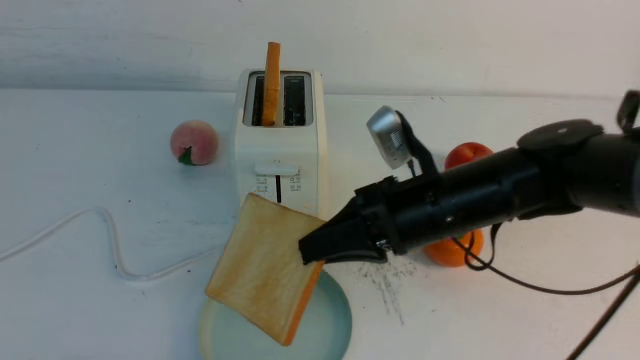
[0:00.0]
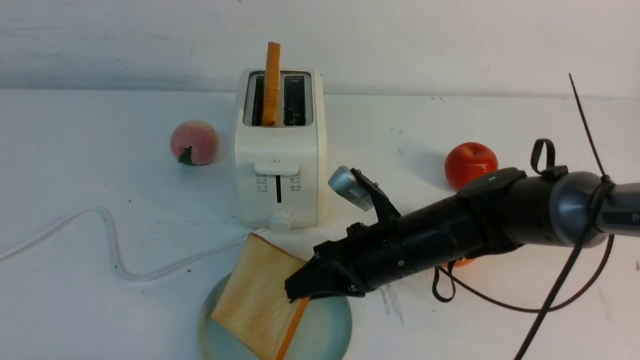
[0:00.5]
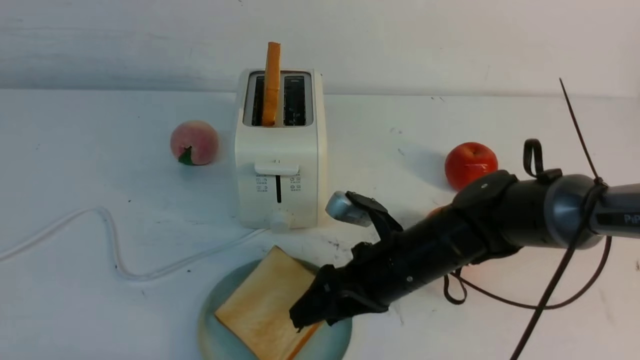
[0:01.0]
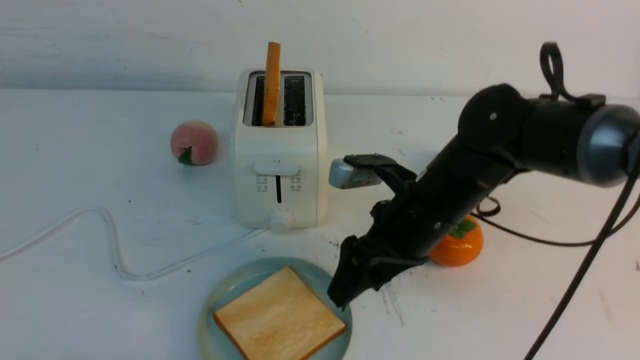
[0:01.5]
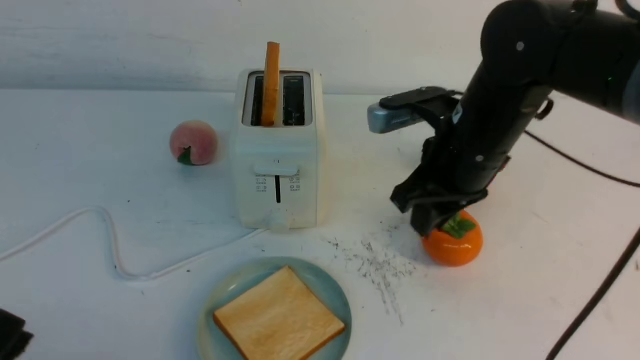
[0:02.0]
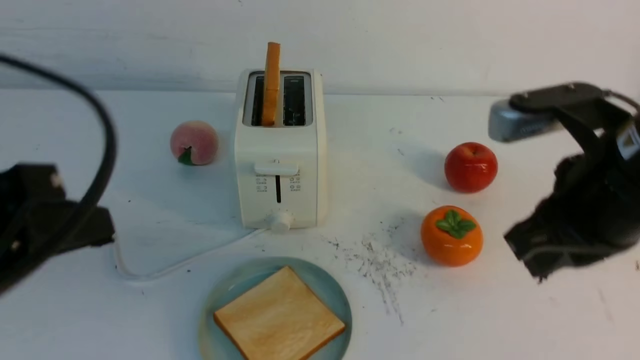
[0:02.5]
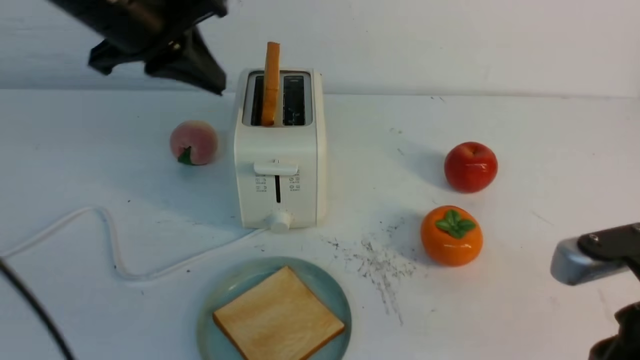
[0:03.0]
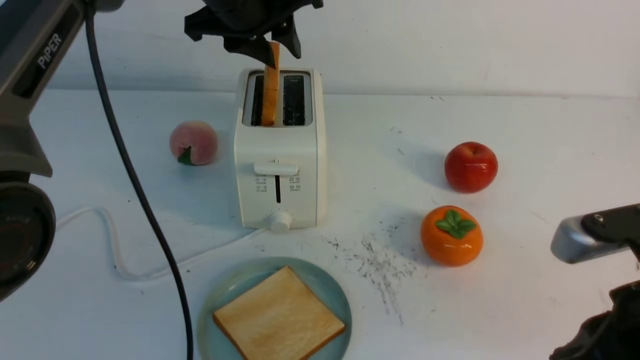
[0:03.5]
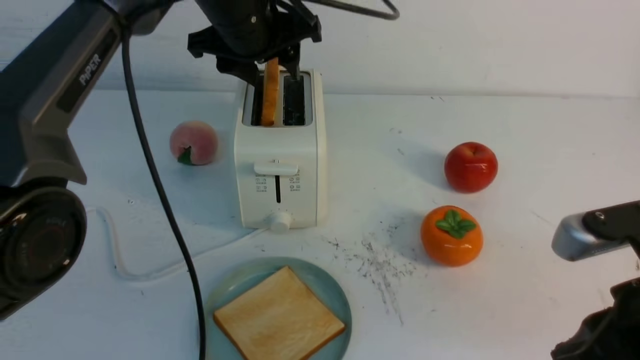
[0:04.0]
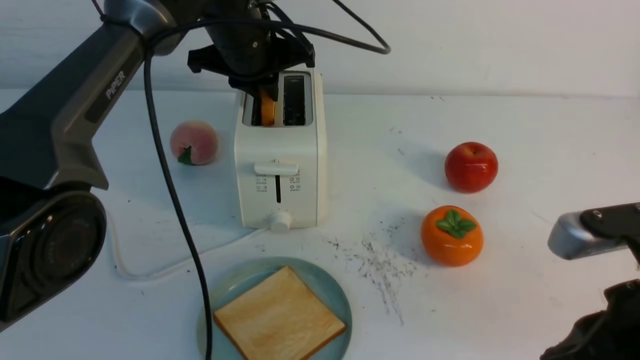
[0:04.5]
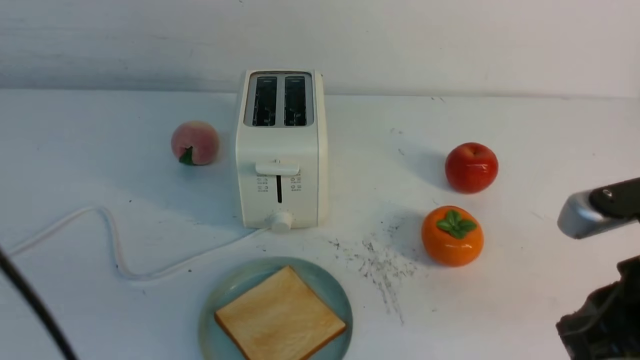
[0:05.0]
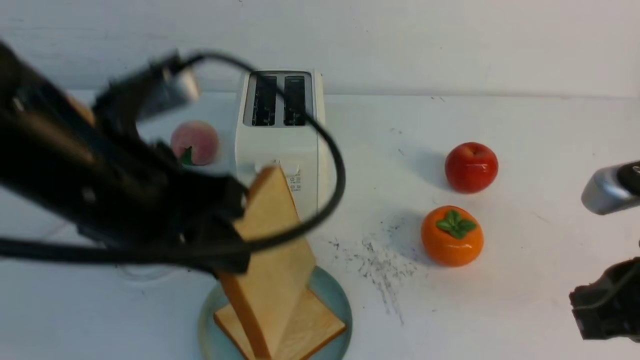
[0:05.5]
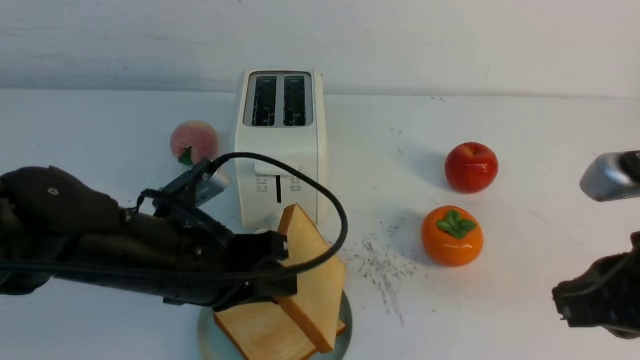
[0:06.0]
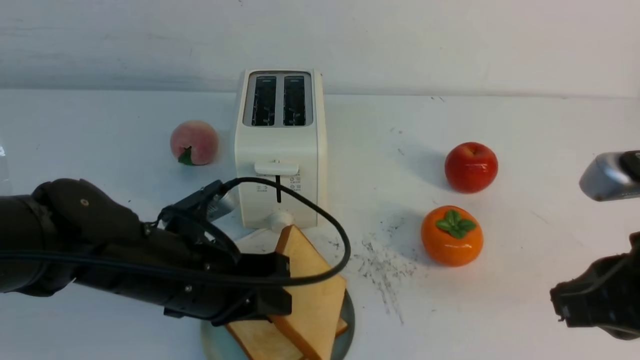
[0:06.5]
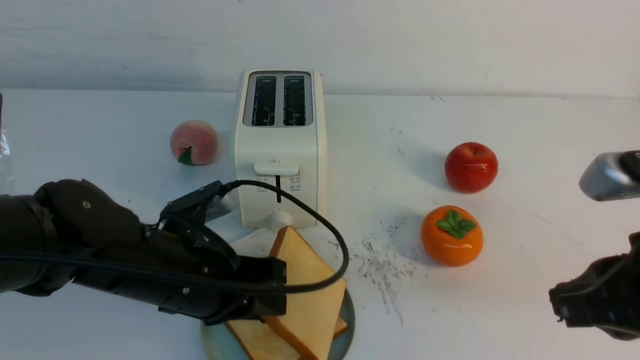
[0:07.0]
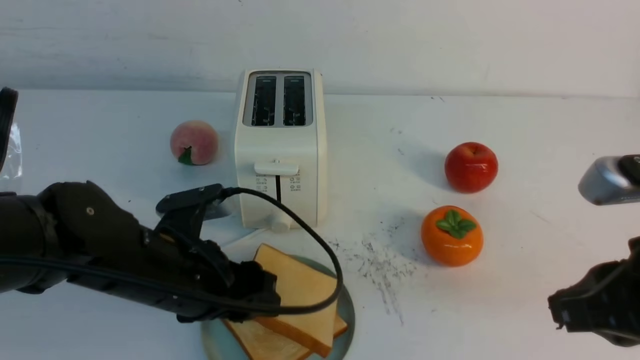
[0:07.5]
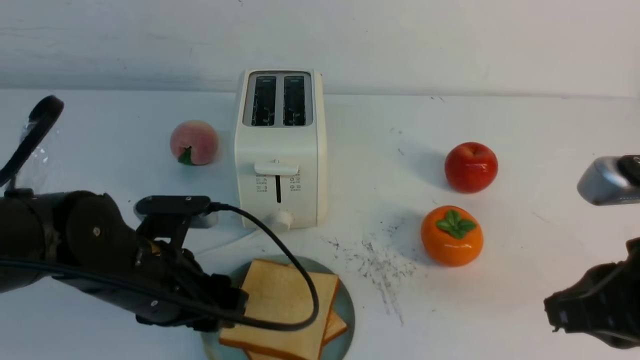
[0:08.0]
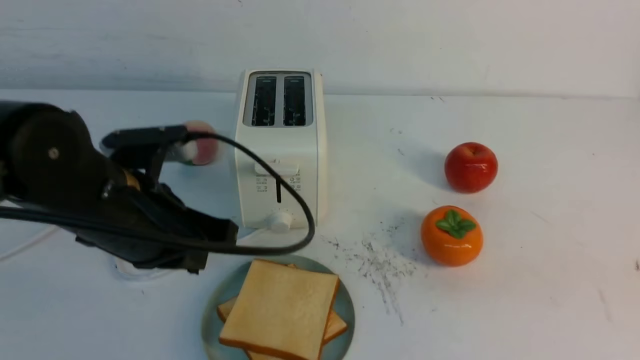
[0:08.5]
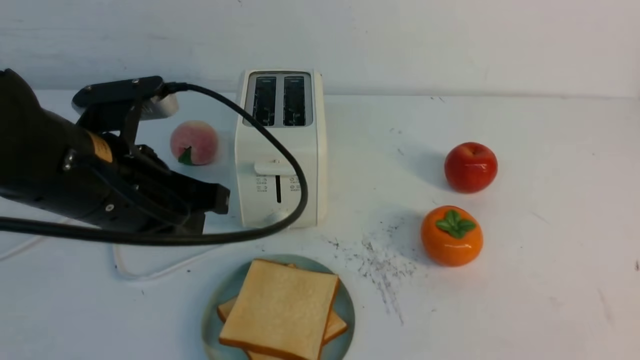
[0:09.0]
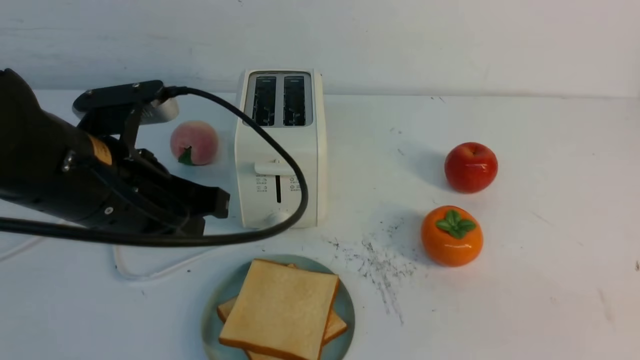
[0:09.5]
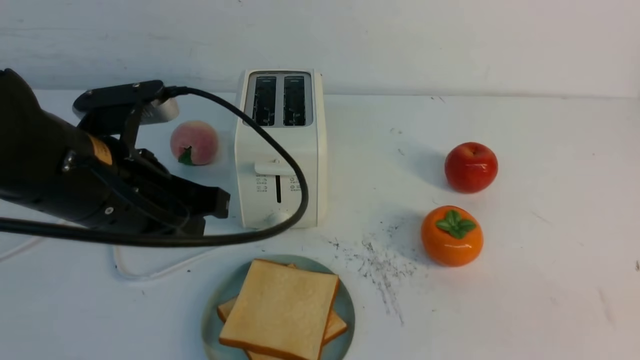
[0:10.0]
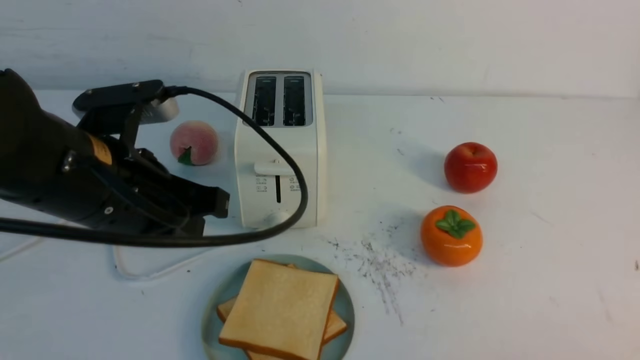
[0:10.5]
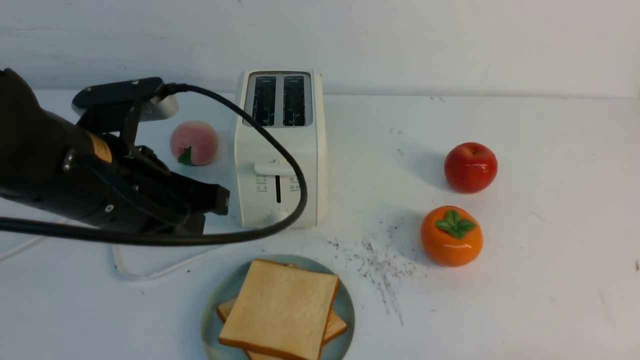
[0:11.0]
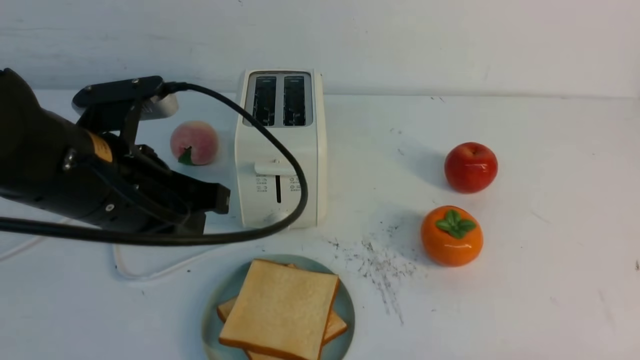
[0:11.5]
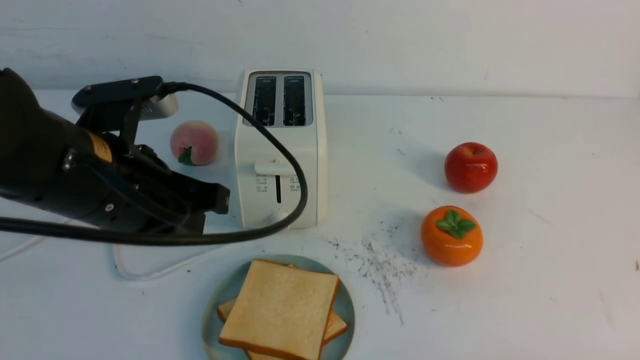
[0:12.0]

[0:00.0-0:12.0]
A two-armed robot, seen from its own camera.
Task of the whole recording: take toasted bread from bread machine on white table place on plate.
Step, 0:02.0 to 0:04.5: use the left arm to take out a slice of bread.
Step, 0:05.0 to 0:07.5: use the left arm to put a slice of bread into the empty plate.
0:00.0 to 0:02.0: The two grippers go roughly 5 cm upward. The right gripper opens and closes again.
0:02.0 to 0:04.0: The right gripper moves backward and to the right, about 20 cm. The left gripper shifts some 40 cm forward, and opens up.
0:04.0 to 0:06.0: The left gripper heads backward and downward, covering some 25 cm, and closes up.
0:06.0 to 0:08.0: The left gripper opens up.
0:08.0 to 0:10.0: The right gripper moves backward and to the right, roughly 15 cm; the left gripper heads upward, covering some 10 cm, and closes.
0:10.0 to 0:12.0: The right gripper moves downward, about 10 cm.

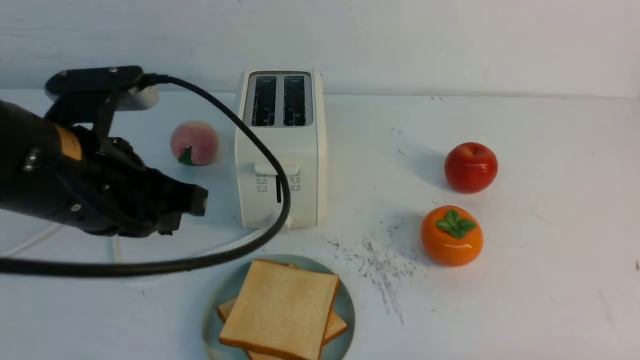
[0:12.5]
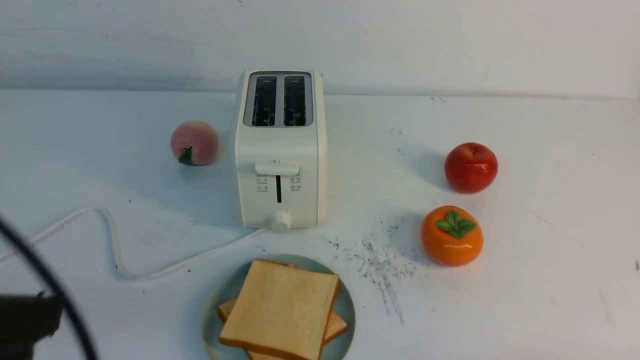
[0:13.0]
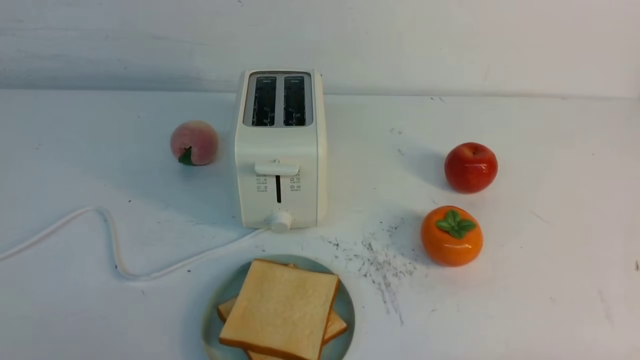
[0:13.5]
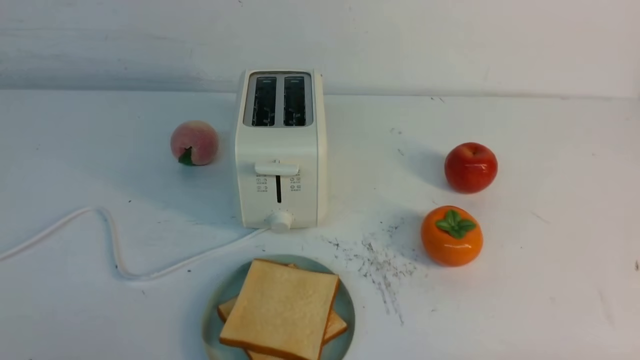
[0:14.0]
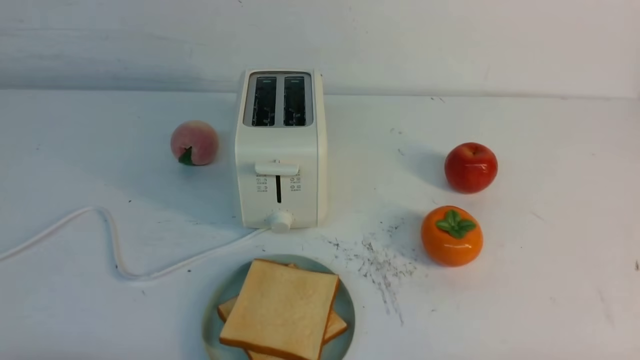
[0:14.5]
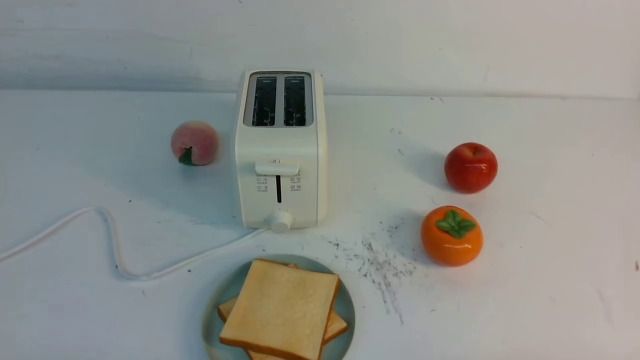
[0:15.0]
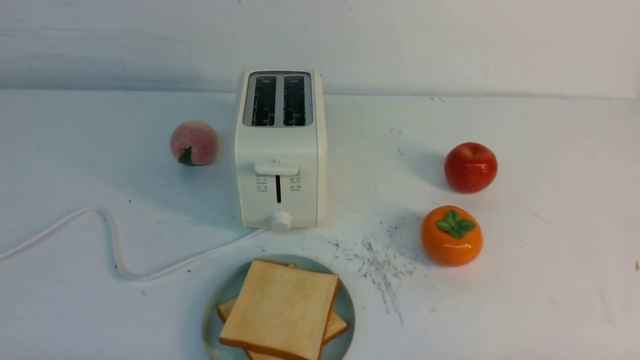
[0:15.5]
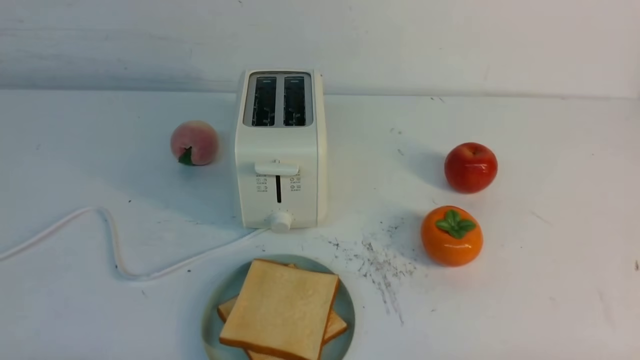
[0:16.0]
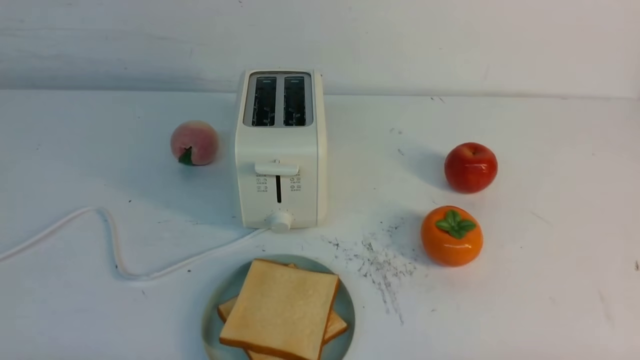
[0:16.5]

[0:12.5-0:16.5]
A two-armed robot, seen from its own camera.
Task of the whole recording: take toasted bread from bread machine on white table place on plate.
0:12.5 to 0:14.5: The left gripper is displaced backward, downward and to the left by about 25 cm.
